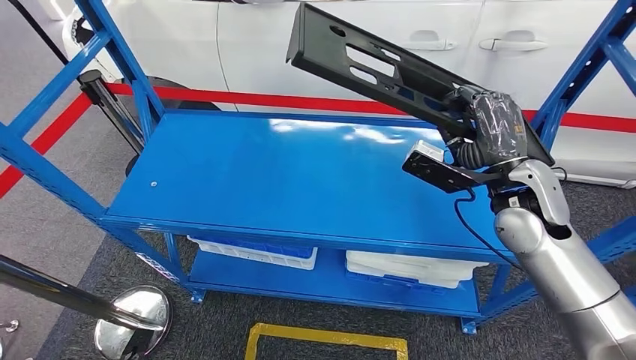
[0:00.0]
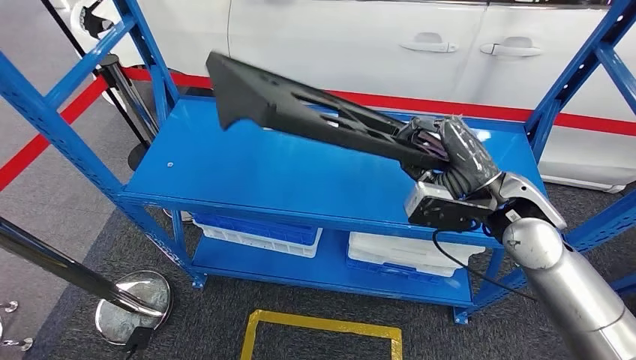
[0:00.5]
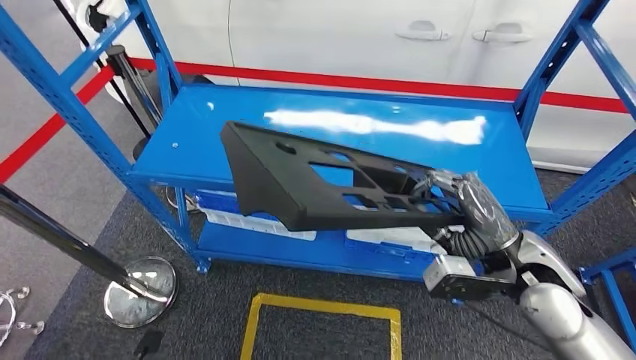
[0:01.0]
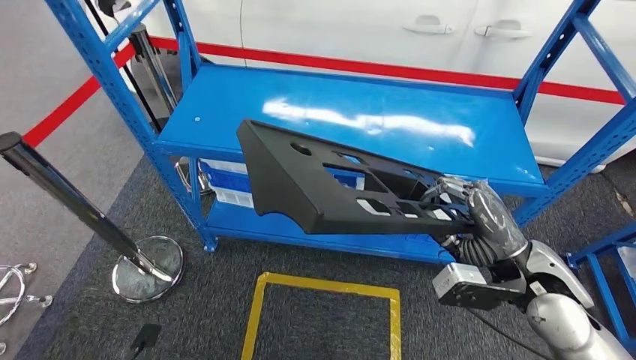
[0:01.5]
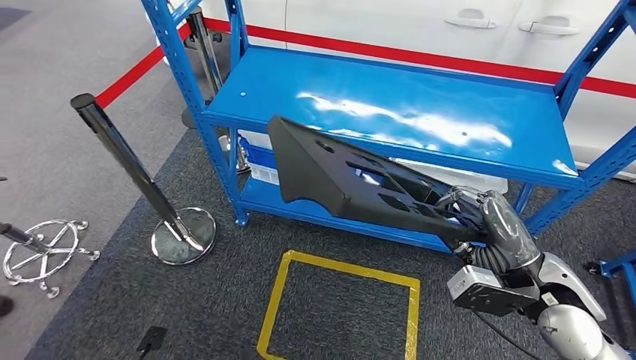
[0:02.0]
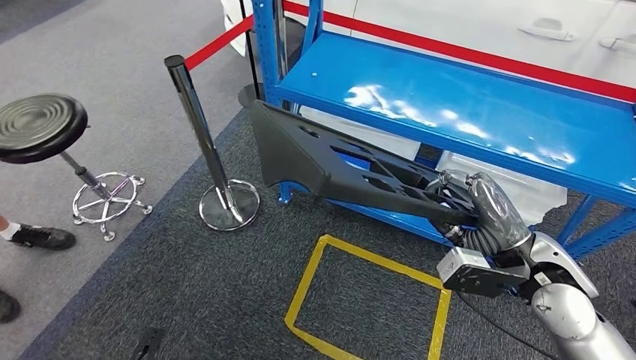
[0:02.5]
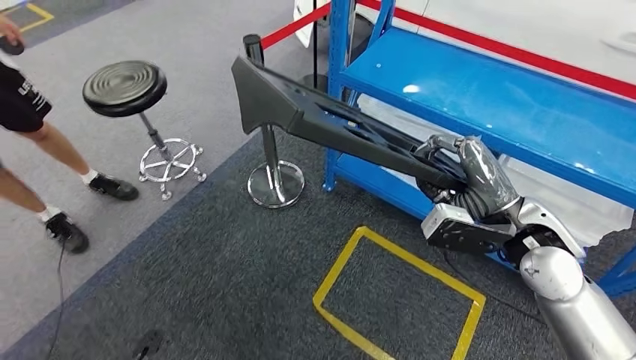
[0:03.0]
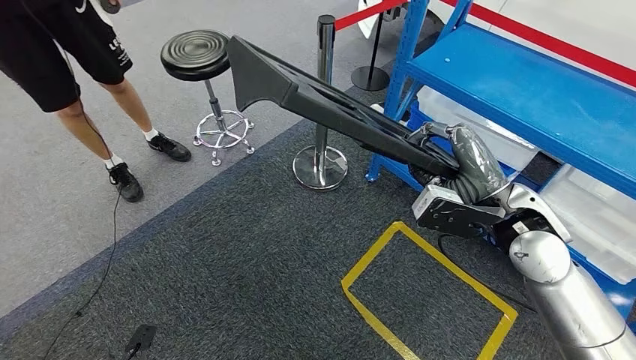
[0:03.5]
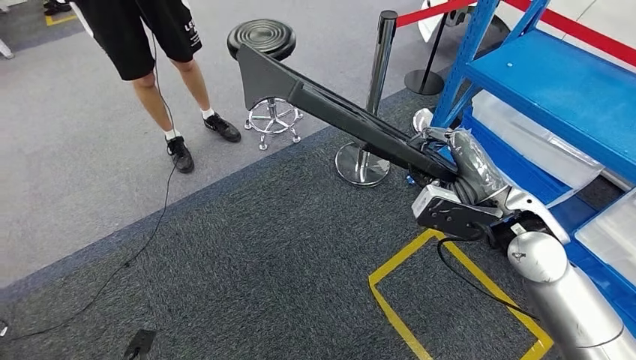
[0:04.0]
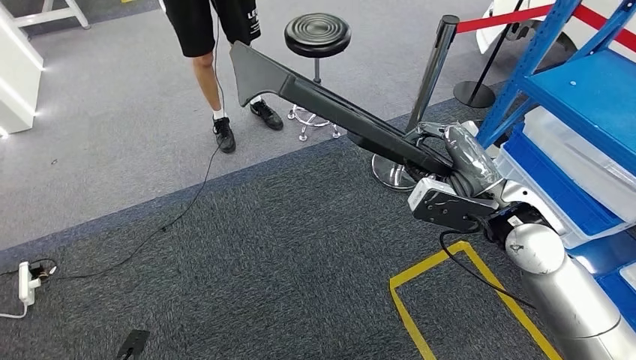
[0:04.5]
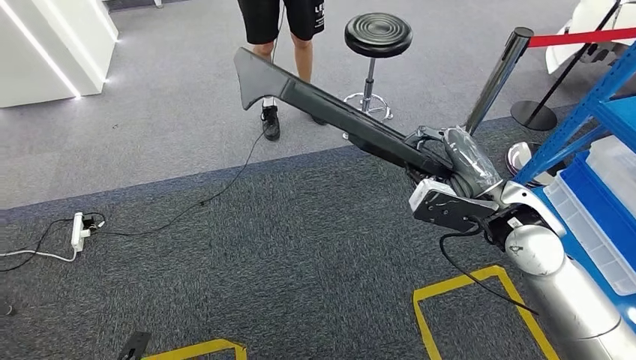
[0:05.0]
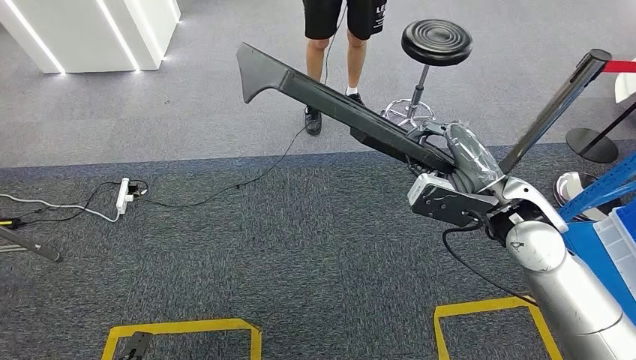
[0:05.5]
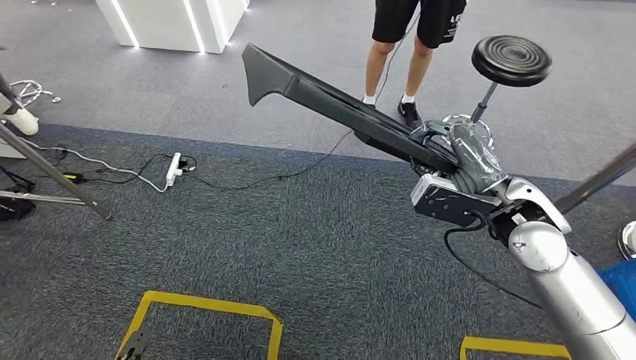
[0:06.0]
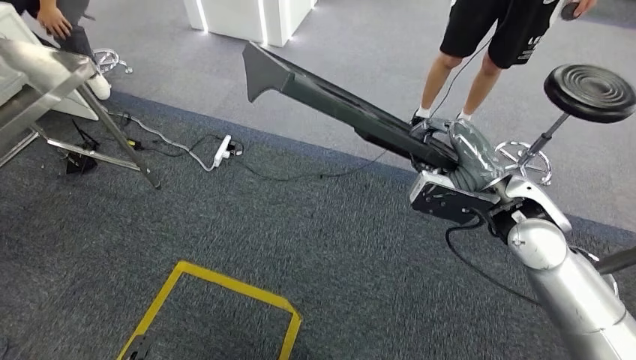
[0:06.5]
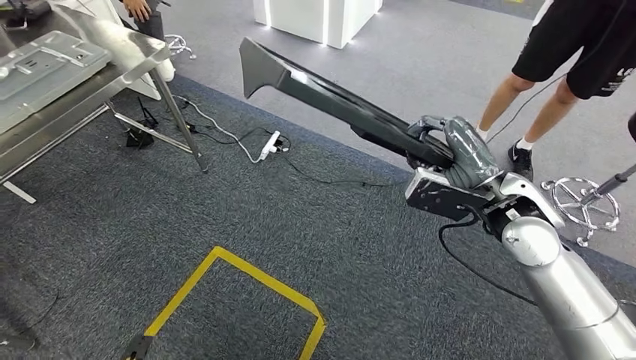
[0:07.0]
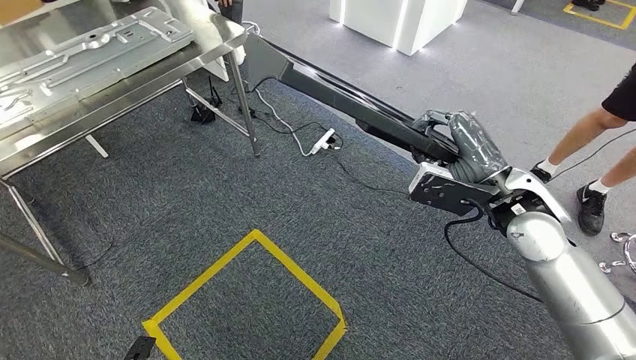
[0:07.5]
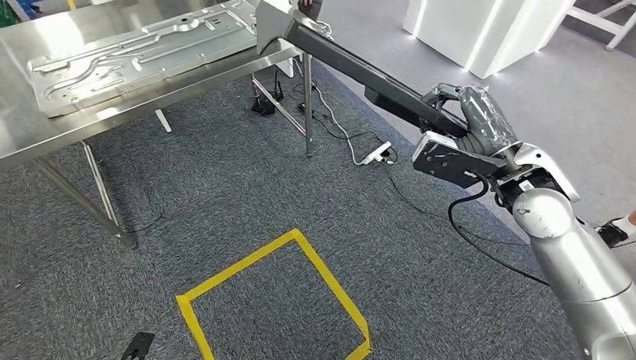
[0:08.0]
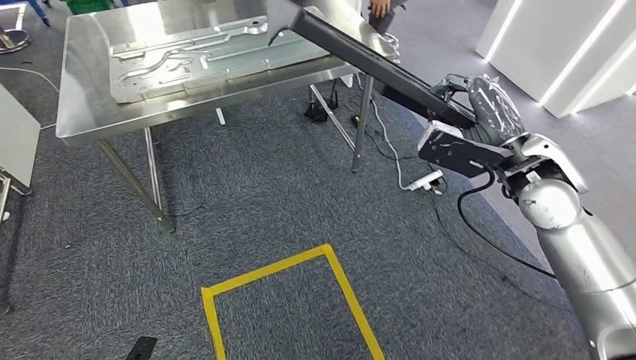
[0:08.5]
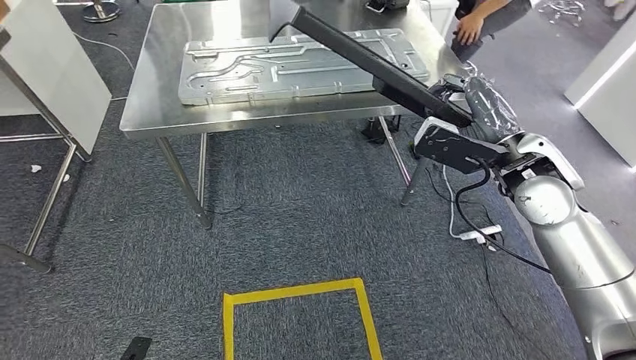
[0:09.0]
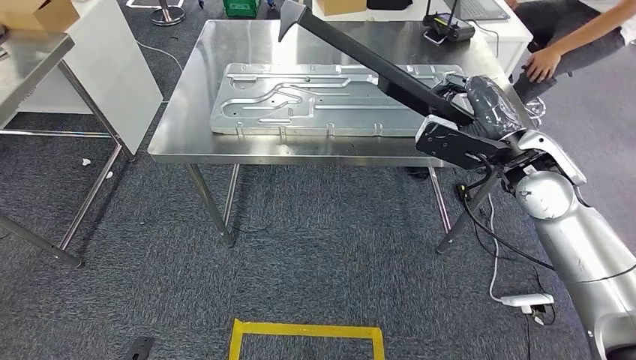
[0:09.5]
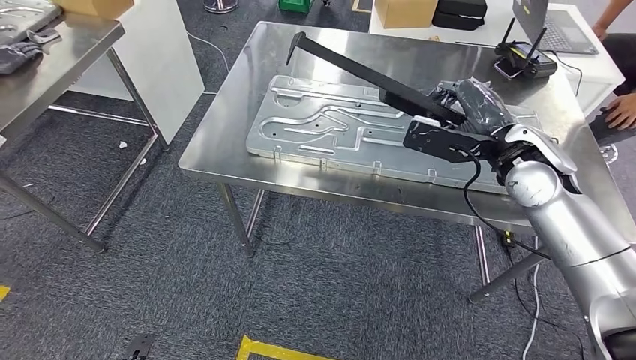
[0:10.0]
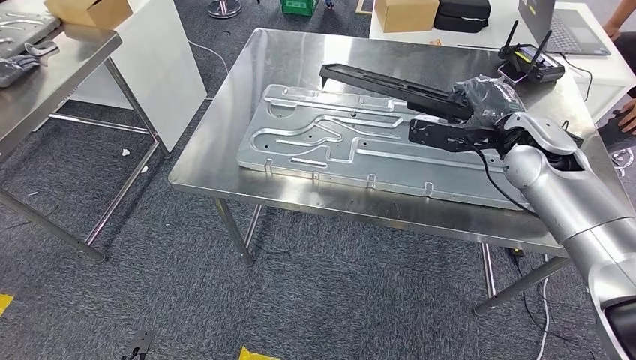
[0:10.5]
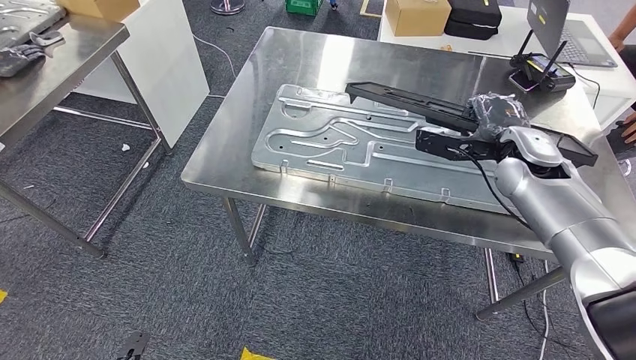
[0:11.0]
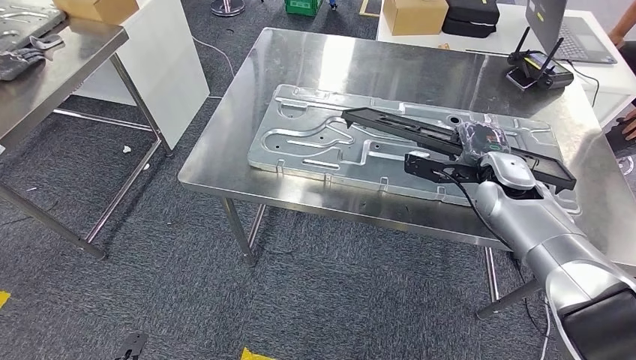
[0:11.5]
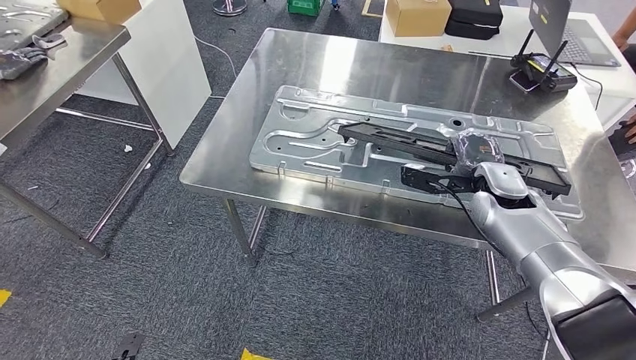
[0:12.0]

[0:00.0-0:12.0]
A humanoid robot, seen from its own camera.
Step, 0:02.0 to 0:10.0: Move the large material to the workbench.

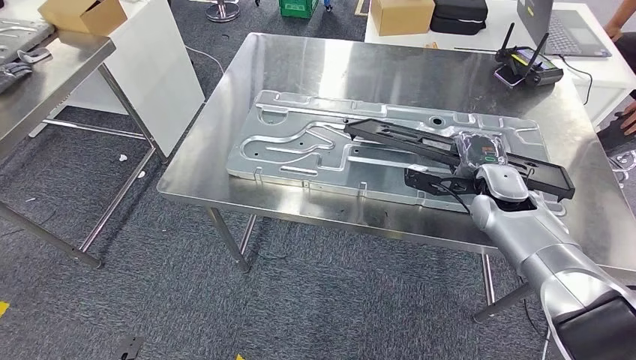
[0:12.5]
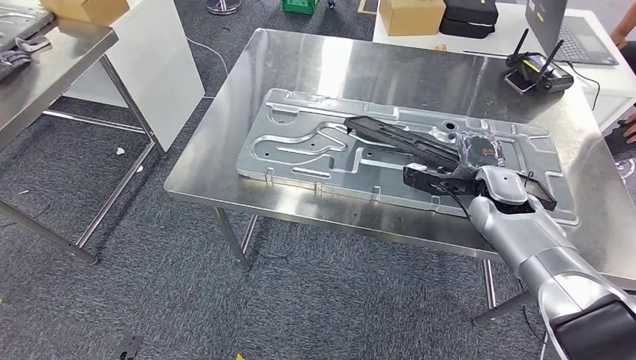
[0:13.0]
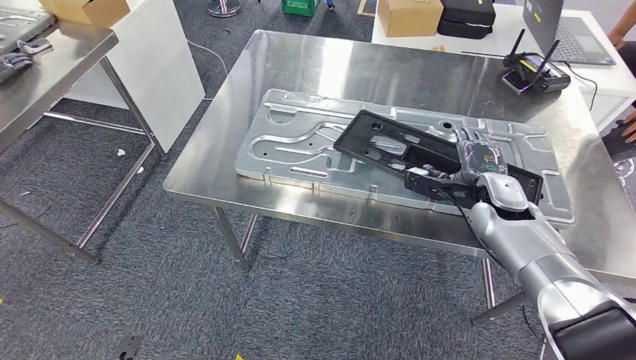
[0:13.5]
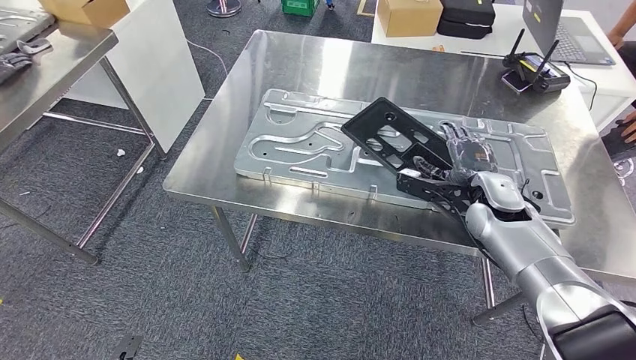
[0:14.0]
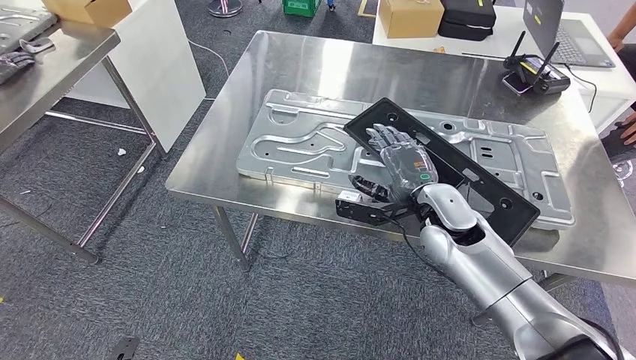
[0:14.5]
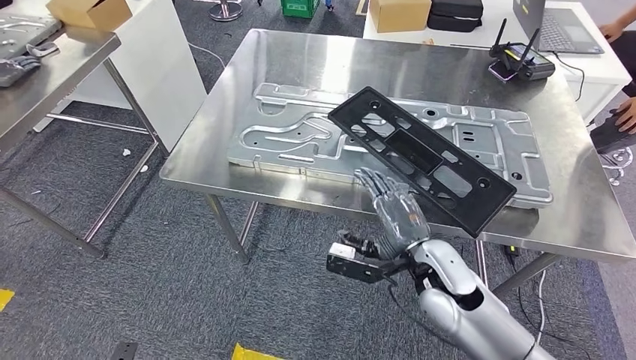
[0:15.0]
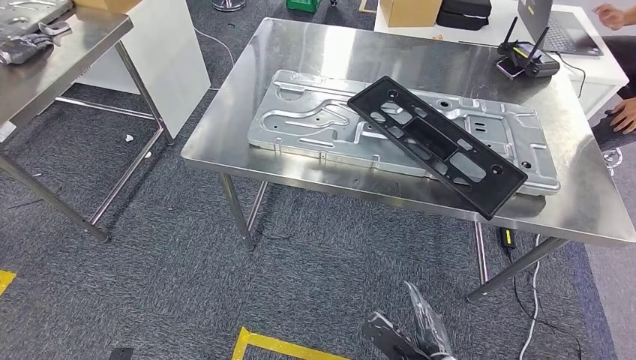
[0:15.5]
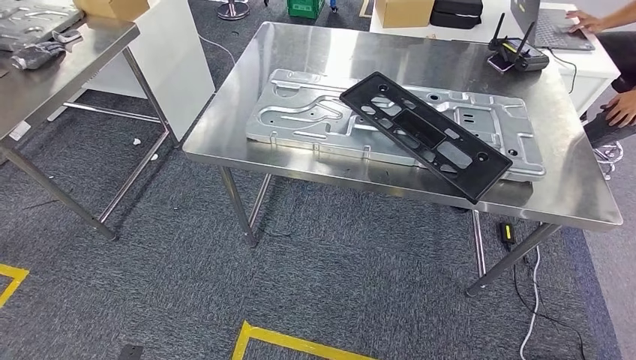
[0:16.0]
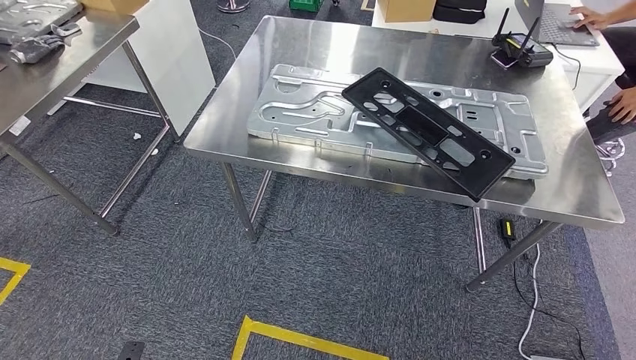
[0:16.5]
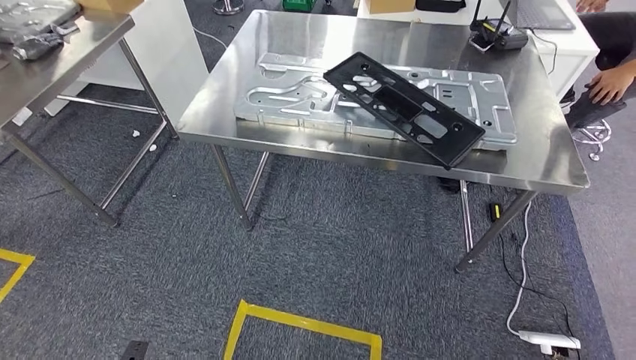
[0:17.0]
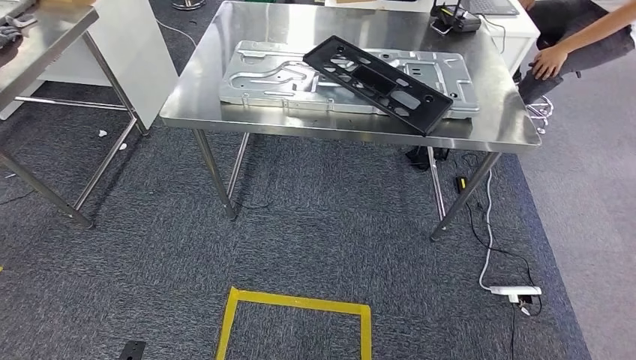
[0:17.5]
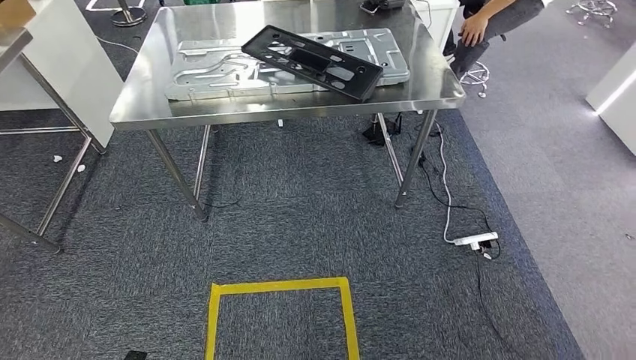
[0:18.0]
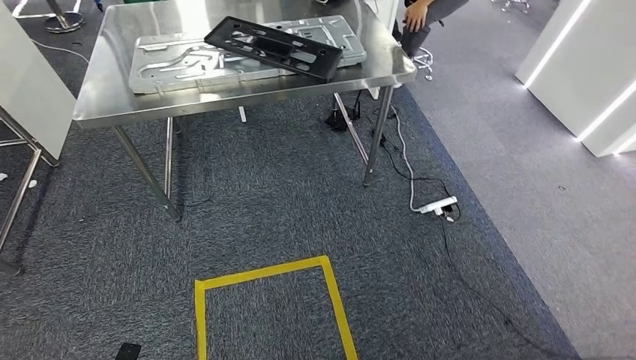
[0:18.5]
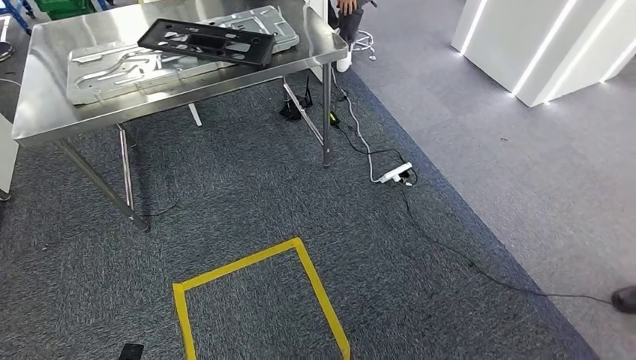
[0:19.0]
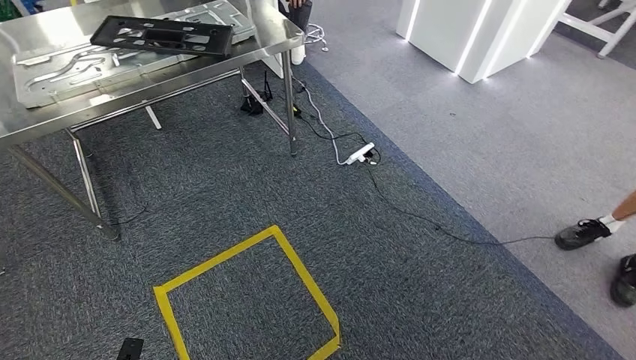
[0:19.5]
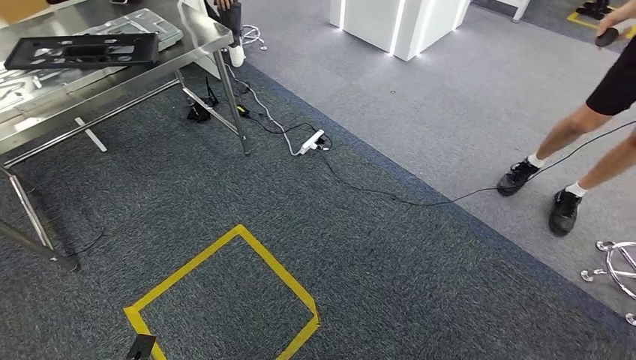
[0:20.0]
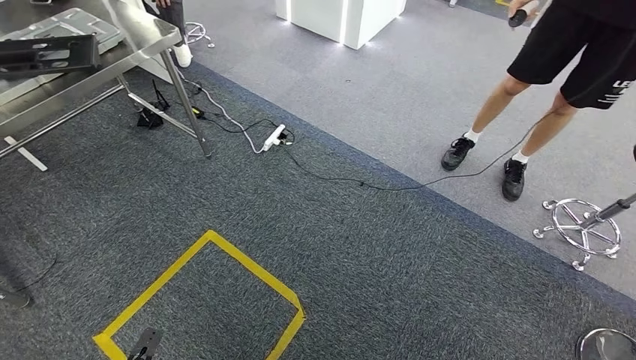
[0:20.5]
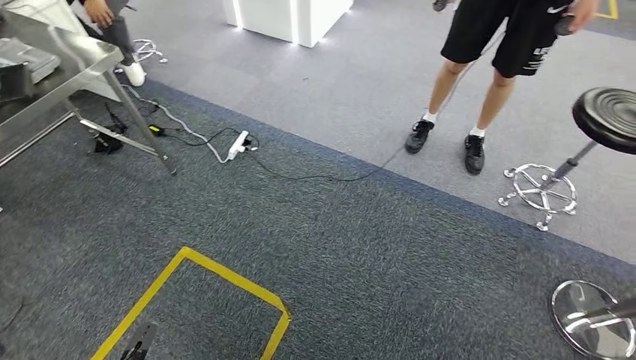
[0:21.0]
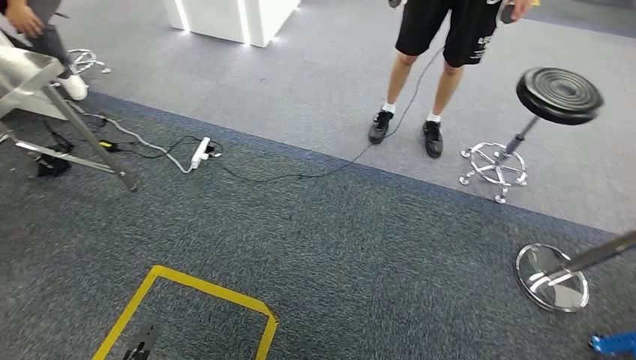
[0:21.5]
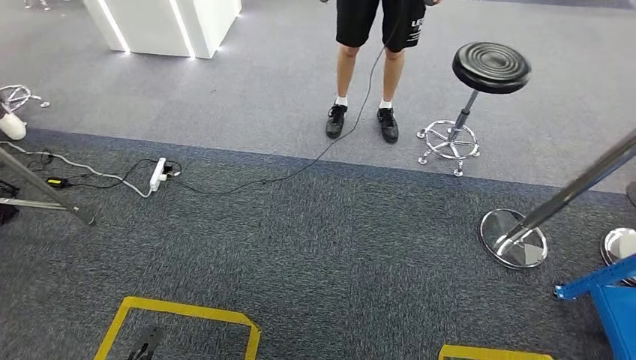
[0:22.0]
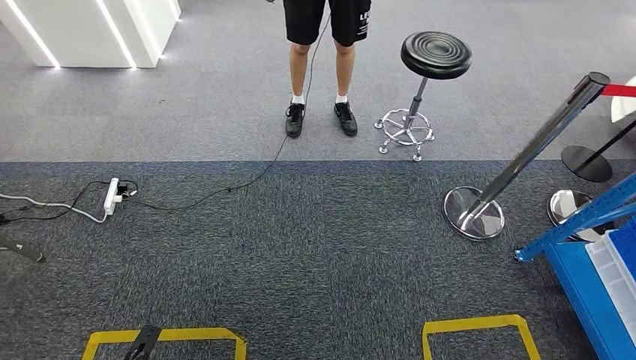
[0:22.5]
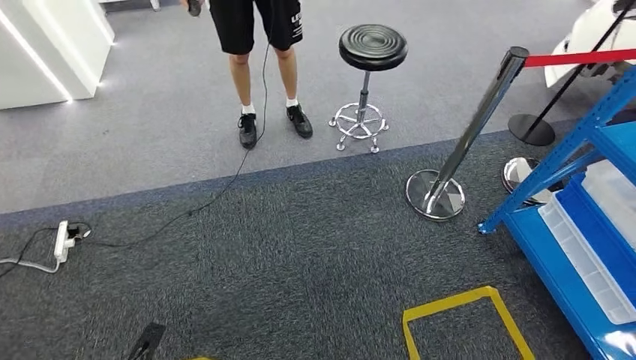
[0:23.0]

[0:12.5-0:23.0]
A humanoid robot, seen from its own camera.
Step, 0:12.5 to 0:17.5: Insert the large material into the corresponding slot on the workbench.
